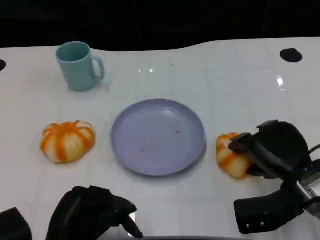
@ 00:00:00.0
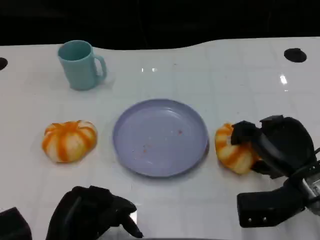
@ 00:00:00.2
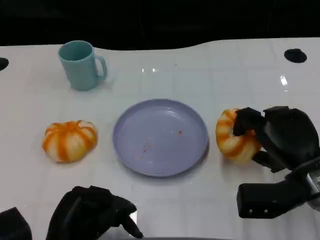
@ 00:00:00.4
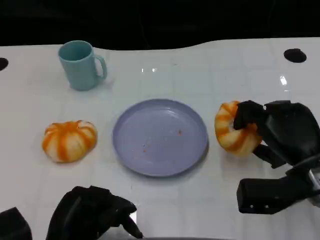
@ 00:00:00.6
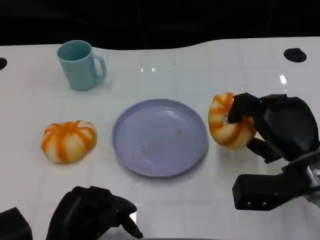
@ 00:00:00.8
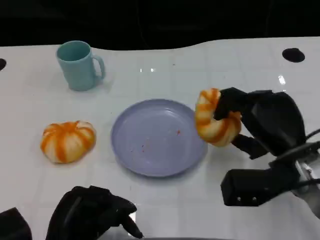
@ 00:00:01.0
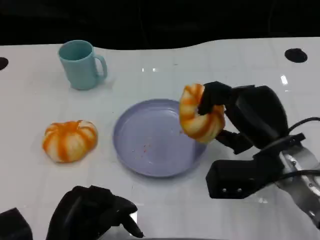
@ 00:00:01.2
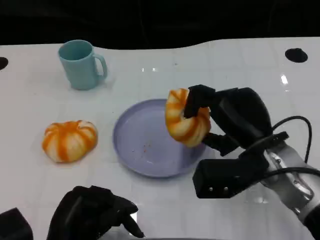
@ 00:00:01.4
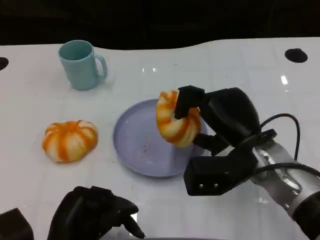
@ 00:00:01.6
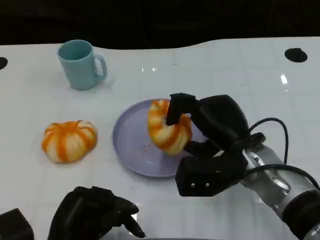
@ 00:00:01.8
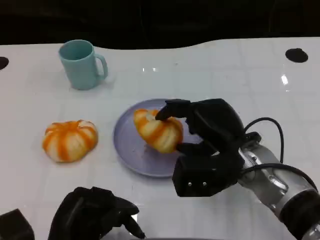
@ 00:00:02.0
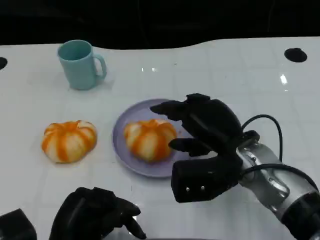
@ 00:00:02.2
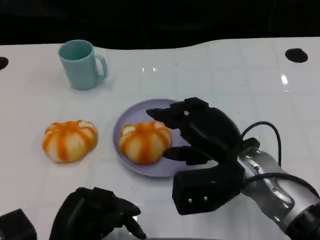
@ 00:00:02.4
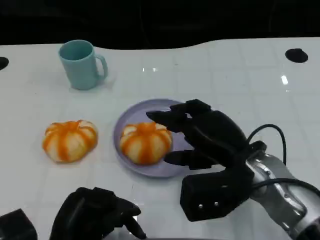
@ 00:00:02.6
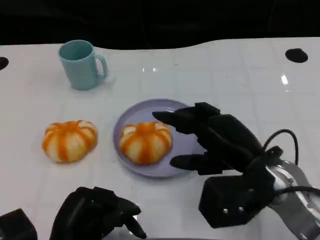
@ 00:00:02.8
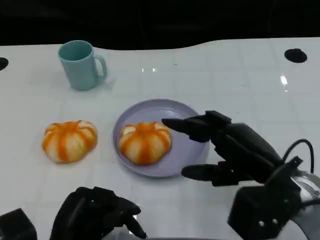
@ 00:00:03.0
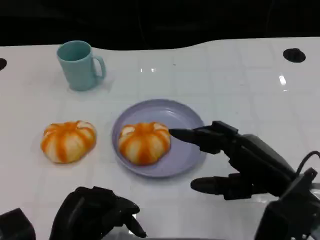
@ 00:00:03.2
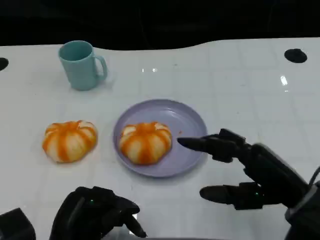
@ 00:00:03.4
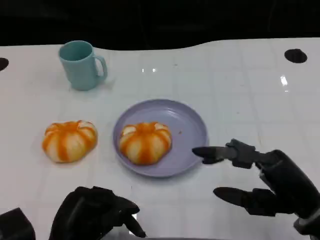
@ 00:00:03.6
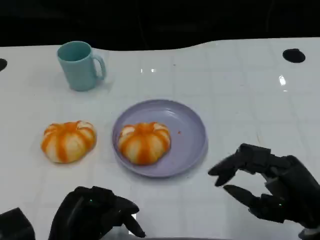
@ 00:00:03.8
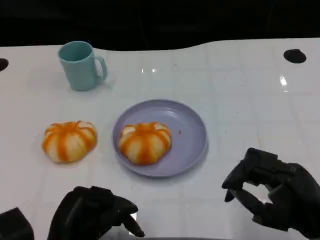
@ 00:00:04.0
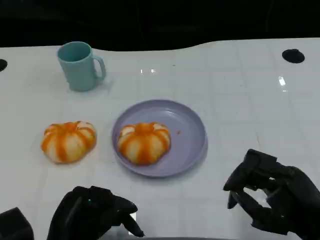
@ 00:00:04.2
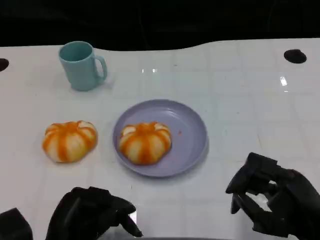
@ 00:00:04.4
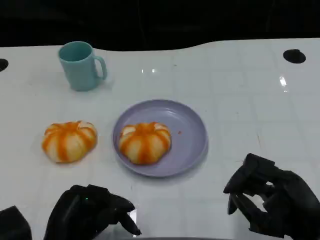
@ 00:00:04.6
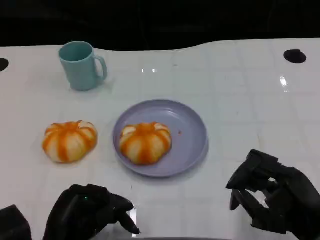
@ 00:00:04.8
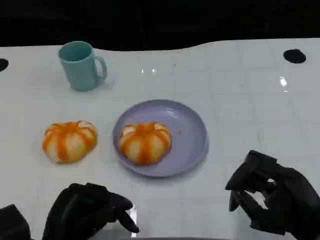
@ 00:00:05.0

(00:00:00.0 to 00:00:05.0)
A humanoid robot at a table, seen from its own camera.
Task of the whole recording: Grasp the bread from the table and place it into the plate.
00:00:00.0 - 00:00:01.6: The right hand goes approximately 10 cm to the left.
00:00:01.6 - 00:00:03.4: The right hand moves backward and to the right, about 10 cm.
00:00:03.4 - 00:00:05.0: The right hand changes place by about 5 cm.

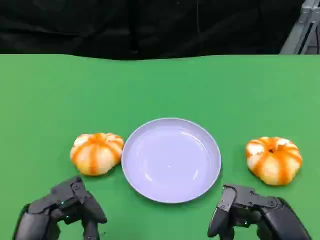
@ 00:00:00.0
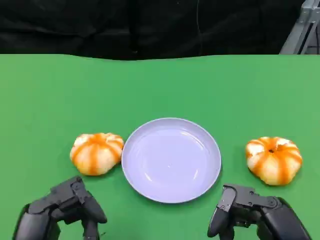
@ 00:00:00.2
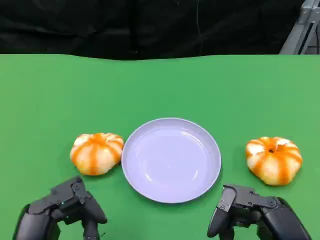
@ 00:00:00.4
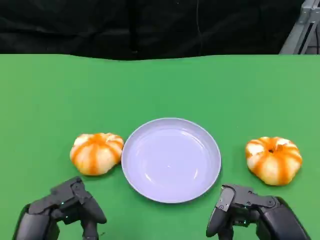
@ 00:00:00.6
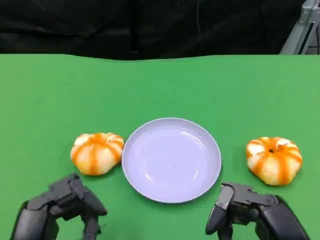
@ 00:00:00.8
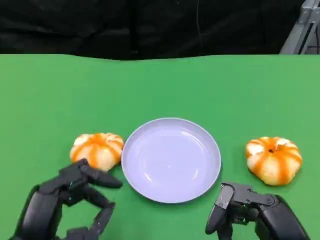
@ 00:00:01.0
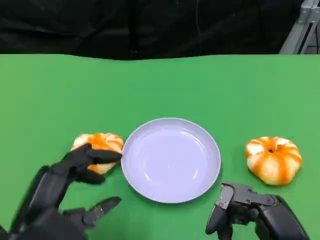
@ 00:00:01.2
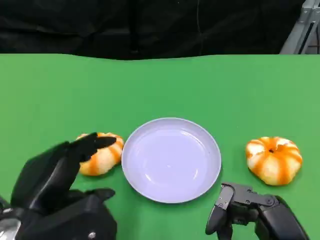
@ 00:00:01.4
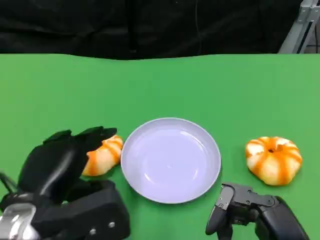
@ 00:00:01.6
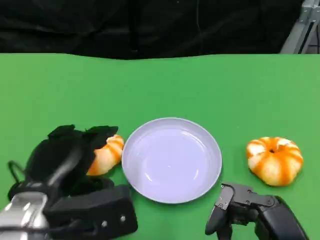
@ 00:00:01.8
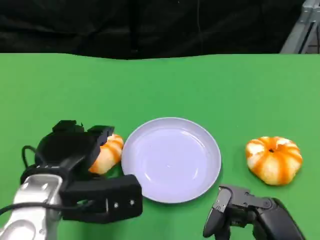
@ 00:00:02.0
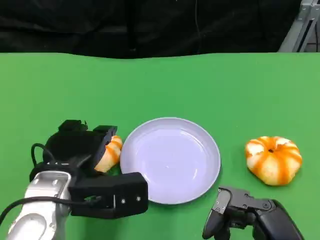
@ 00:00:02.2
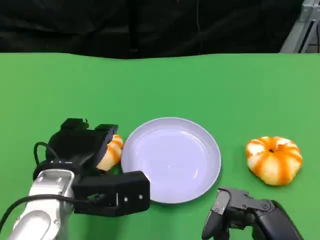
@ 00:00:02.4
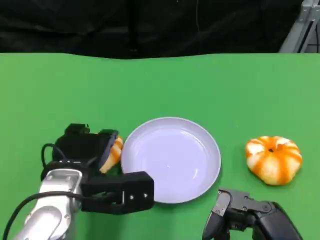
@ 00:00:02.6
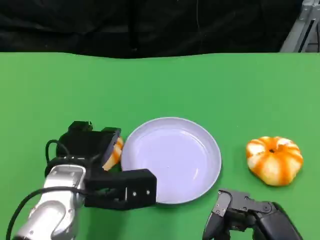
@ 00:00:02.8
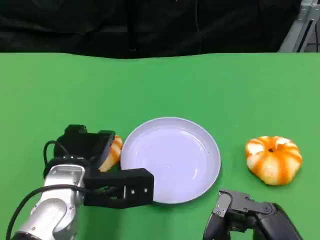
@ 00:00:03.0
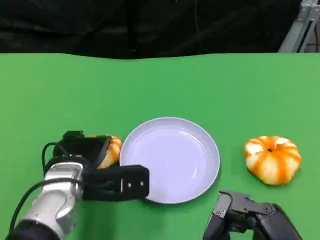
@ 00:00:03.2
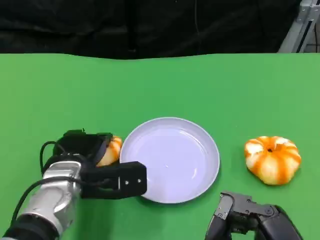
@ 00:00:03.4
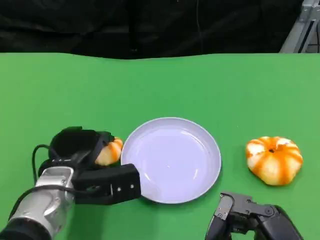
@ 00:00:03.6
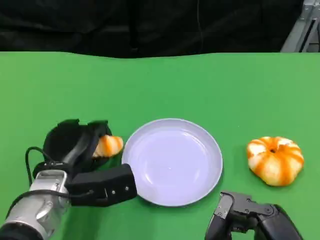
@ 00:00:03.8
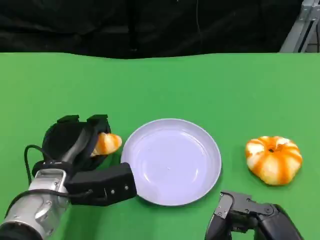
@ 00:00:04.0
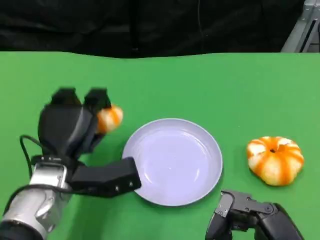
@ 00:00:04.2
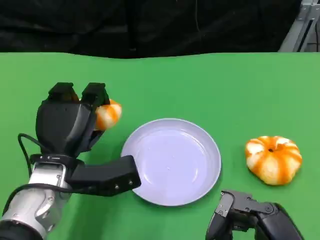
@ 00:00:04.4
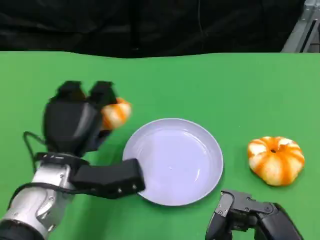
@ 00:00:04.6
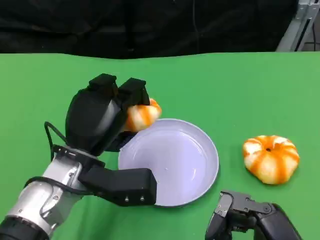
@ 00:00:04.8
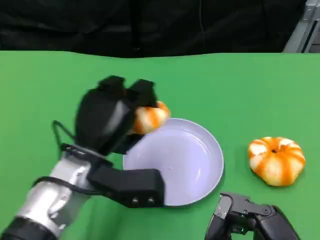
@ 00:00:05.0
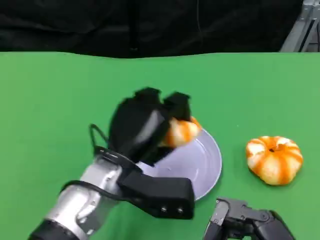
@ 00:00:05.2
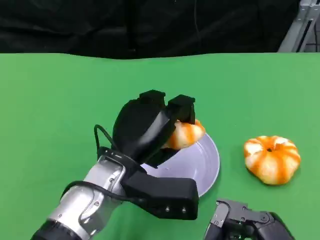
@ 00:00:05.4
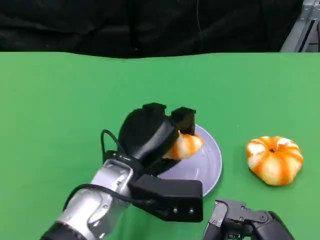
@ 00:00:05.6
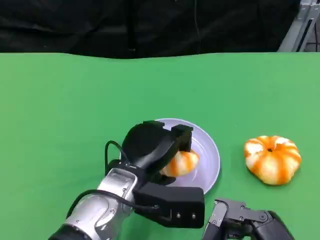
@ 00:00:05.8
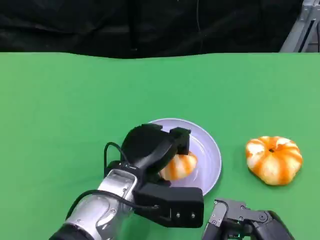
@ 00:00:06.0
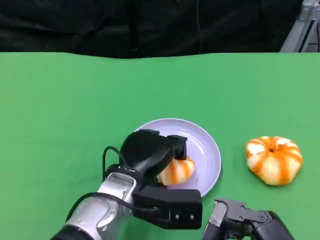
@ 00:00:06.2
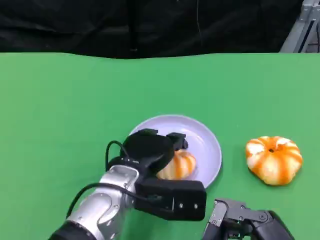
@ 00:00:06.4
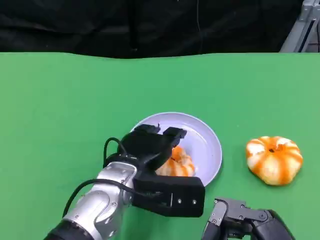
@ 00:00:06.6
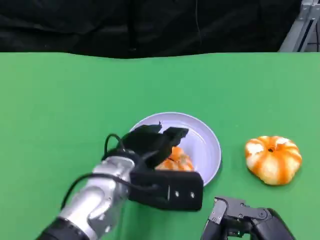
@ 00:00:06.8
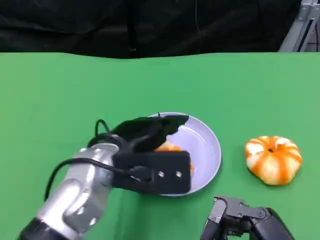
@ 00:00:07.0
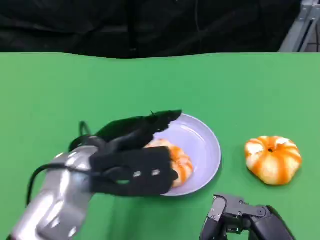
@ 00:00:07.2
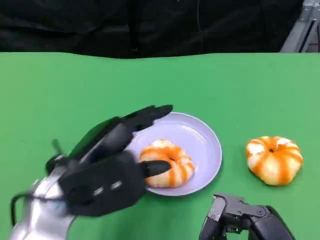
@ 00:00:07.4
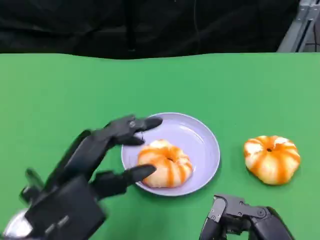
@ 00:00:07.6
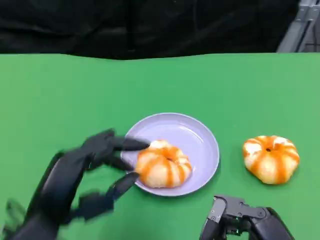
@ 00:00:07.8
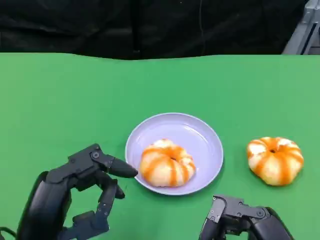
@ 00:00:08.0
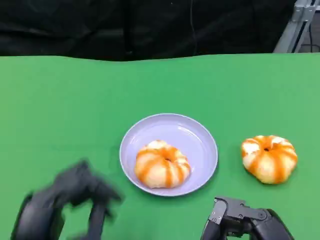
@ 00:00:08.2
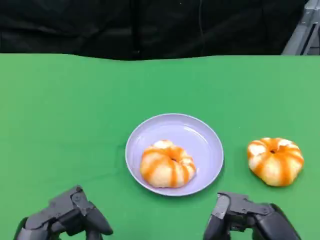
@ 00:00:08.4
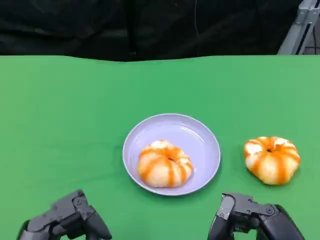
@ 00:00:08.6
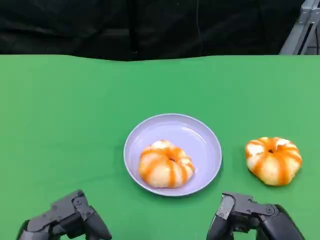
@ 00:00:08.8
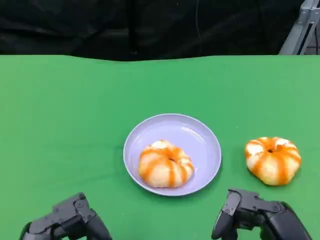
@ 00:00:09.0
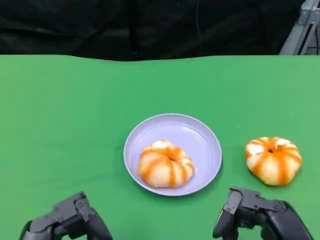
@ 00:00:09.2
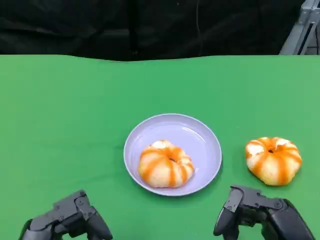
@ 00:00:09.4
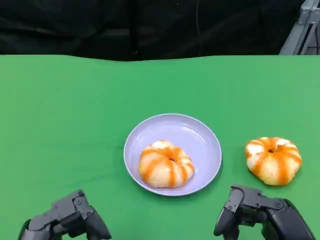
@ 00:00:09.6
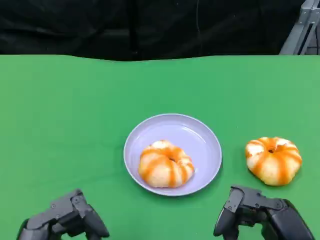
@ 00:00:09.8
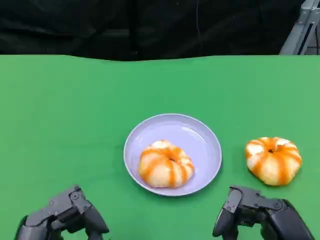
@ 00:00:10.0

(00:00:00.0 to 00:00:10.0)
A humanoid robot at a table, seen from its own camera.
Task of the whole recording: Grasp the bread from the table and place it into the plate.
00:00:00.0 - 00:00:01.4: The left hand travels forward by roughly 5 cm.
00:00:01.4 - 00:00:02.8: The left hand is displaced forward and to the right by about 10 cm.
00:00:04.2 - 00:00:05.8: The left hand travels to the right by some 10 cm.
00:00:05.8 - 00:00:07.2: The left hand goes about 10 cm upward and to the left.
00:00:07.2 - 00:00:08.6: The left hand is displaced backward by approximately 15 cm.
00:00:08.6 - 00:00:10.0: Both hands stay put.
